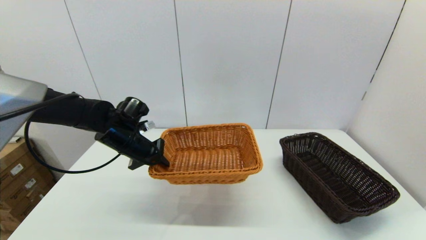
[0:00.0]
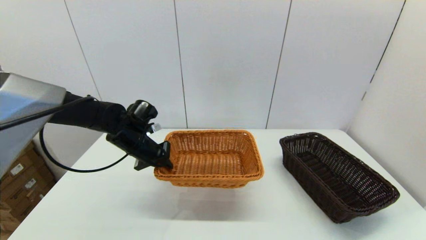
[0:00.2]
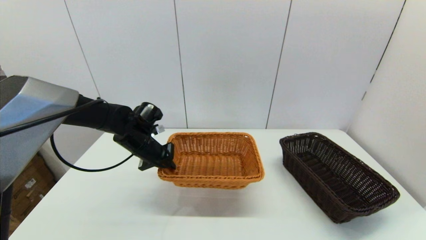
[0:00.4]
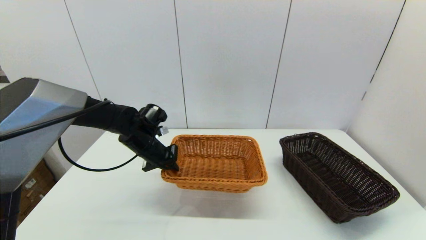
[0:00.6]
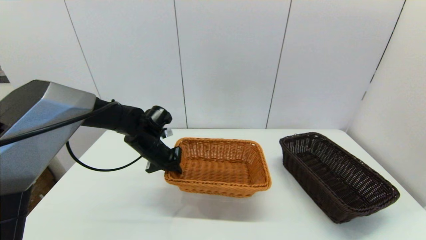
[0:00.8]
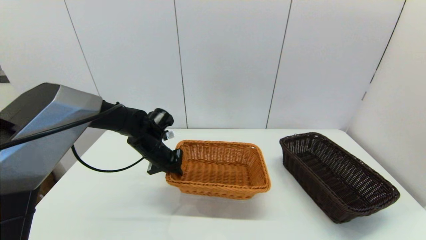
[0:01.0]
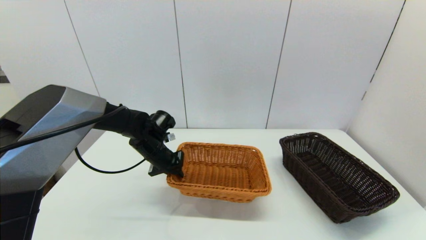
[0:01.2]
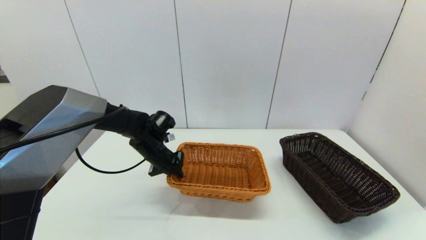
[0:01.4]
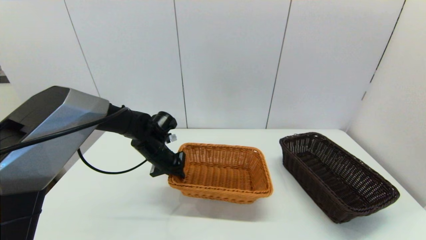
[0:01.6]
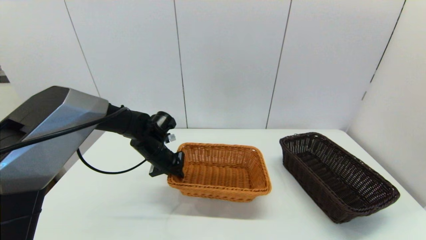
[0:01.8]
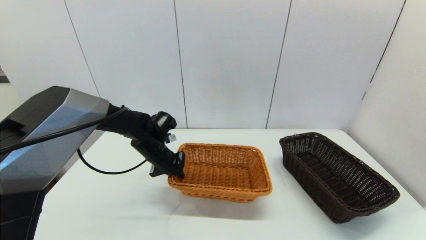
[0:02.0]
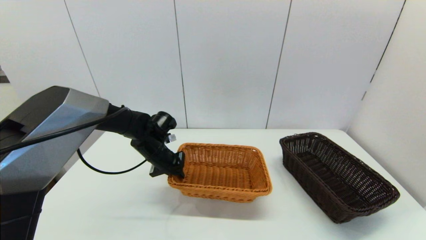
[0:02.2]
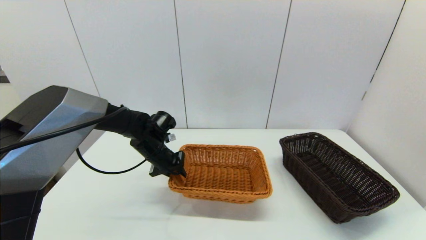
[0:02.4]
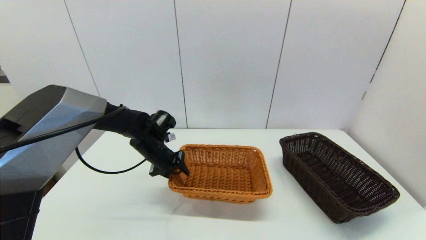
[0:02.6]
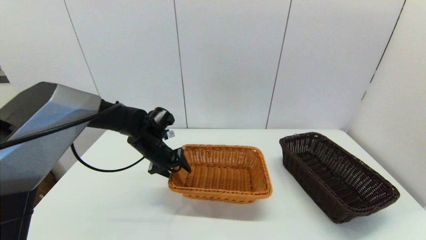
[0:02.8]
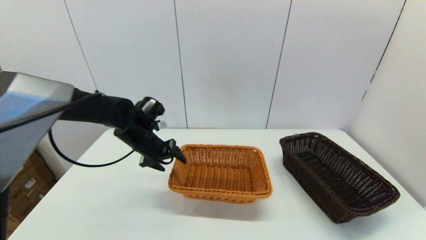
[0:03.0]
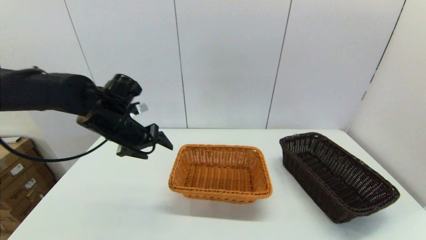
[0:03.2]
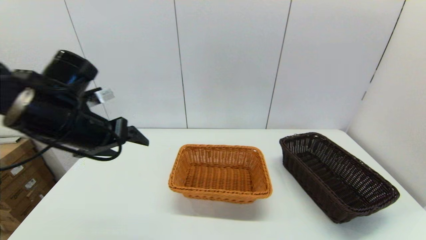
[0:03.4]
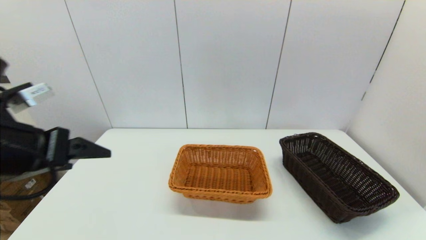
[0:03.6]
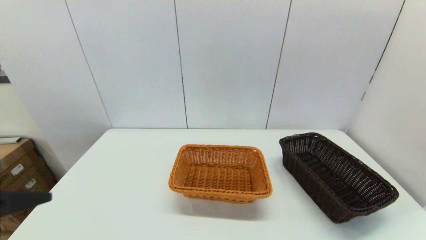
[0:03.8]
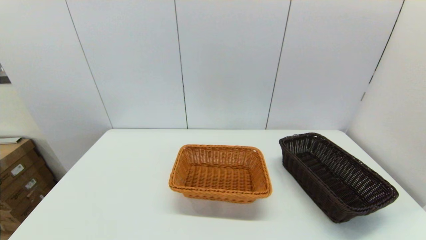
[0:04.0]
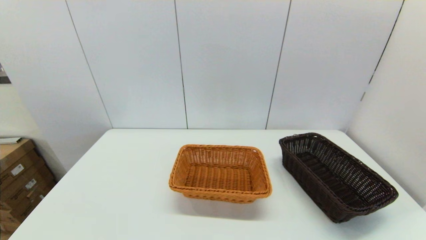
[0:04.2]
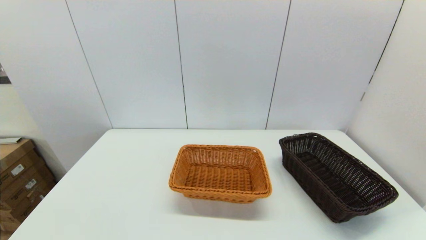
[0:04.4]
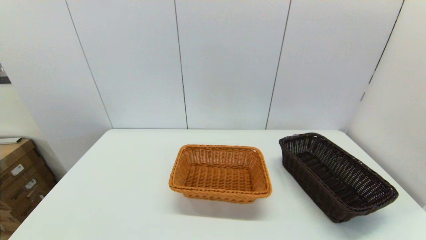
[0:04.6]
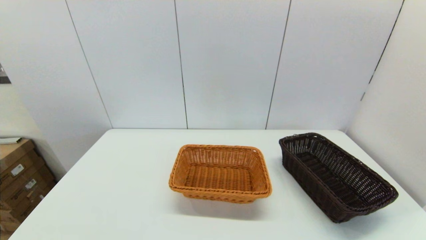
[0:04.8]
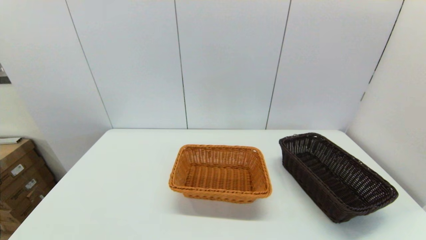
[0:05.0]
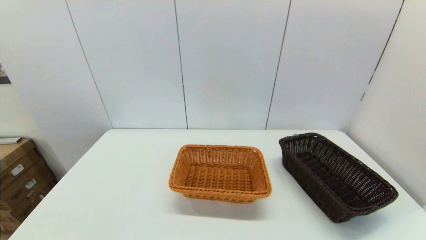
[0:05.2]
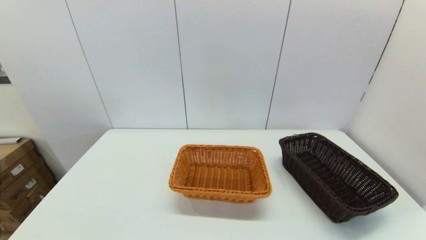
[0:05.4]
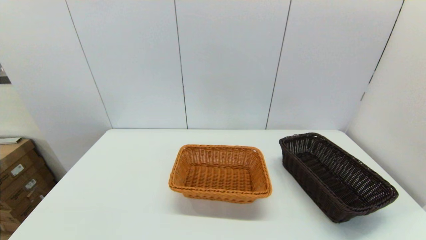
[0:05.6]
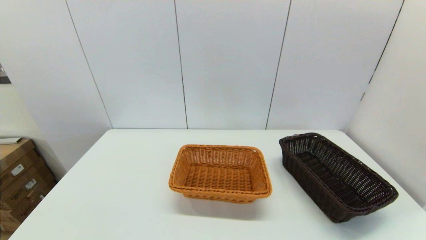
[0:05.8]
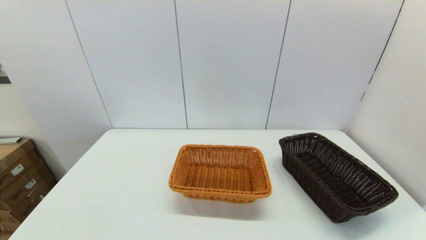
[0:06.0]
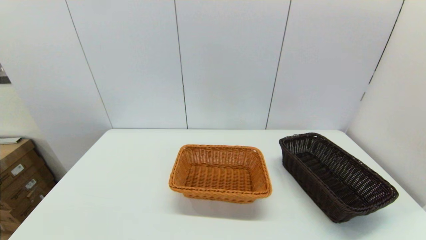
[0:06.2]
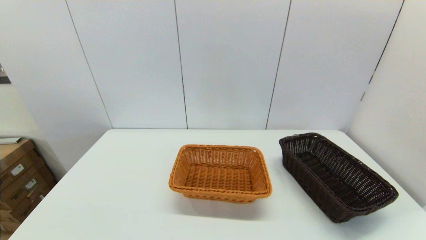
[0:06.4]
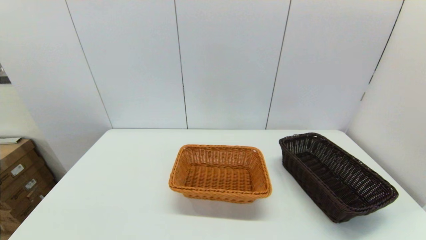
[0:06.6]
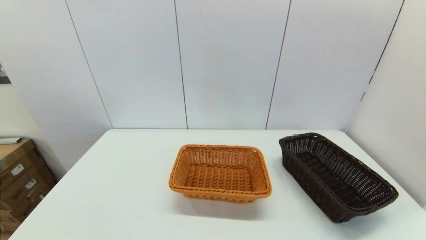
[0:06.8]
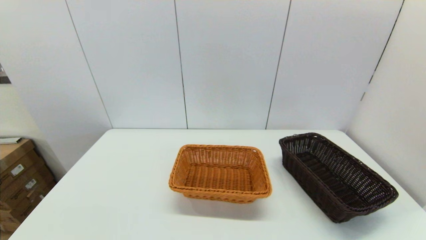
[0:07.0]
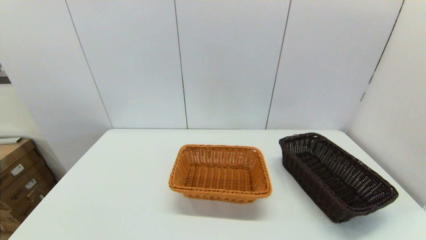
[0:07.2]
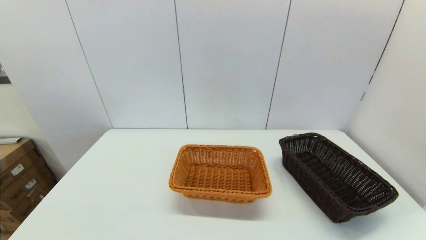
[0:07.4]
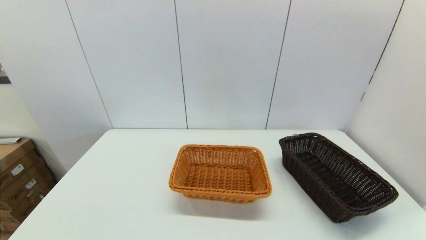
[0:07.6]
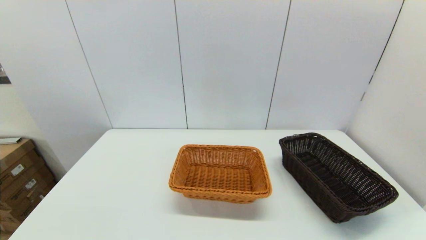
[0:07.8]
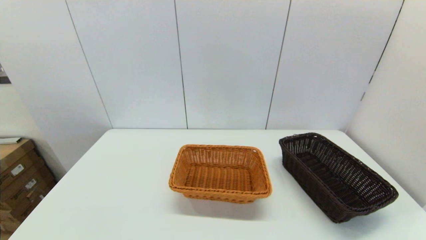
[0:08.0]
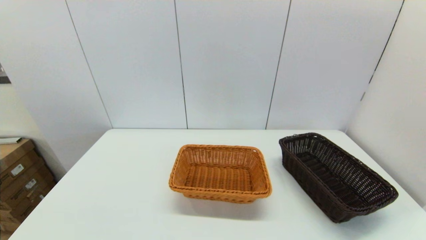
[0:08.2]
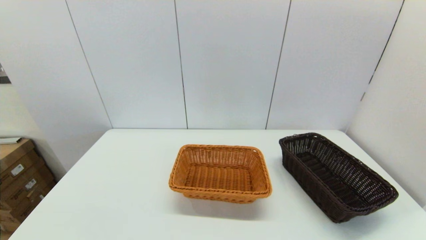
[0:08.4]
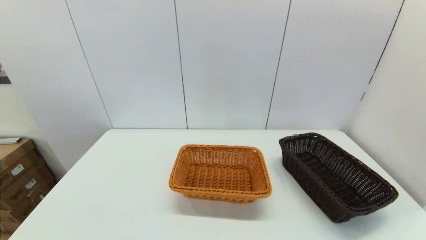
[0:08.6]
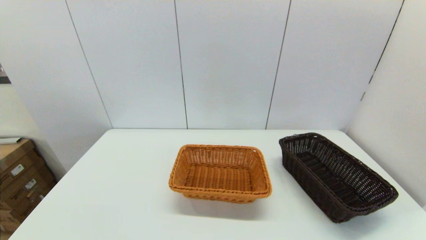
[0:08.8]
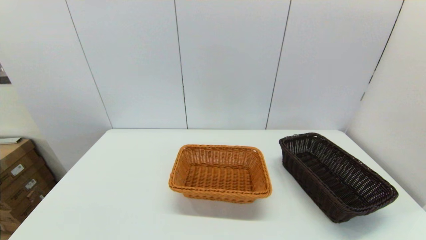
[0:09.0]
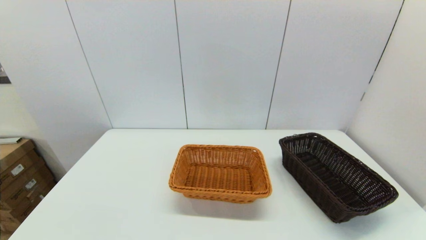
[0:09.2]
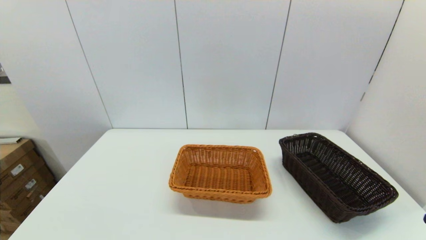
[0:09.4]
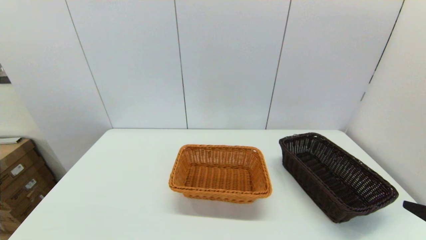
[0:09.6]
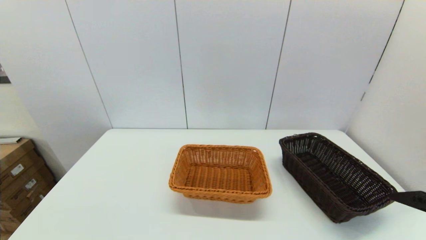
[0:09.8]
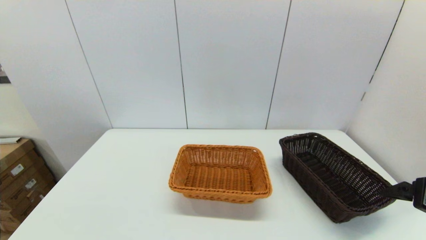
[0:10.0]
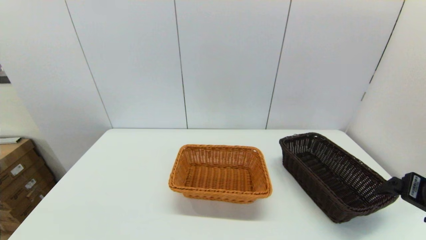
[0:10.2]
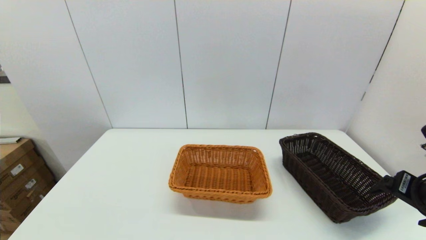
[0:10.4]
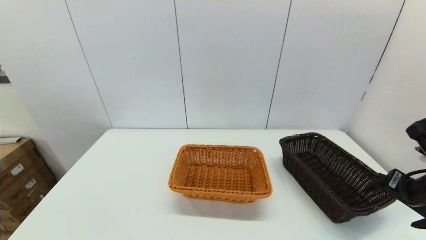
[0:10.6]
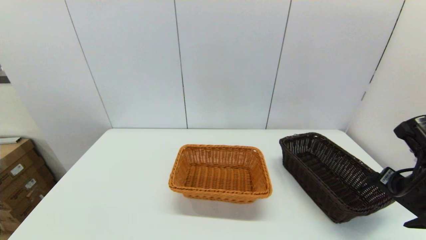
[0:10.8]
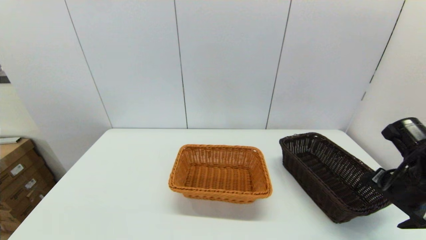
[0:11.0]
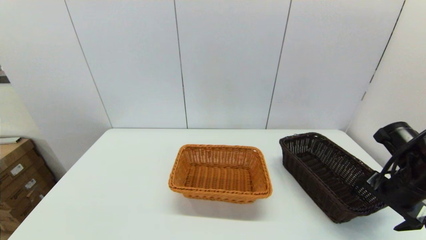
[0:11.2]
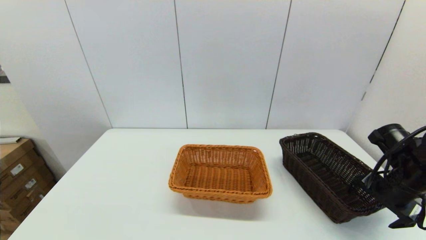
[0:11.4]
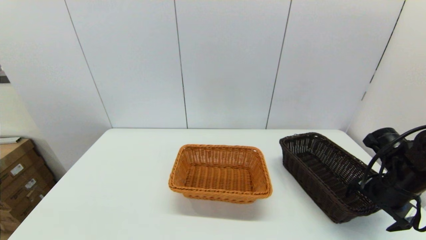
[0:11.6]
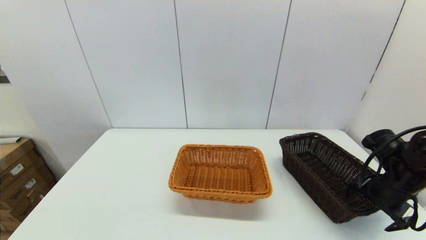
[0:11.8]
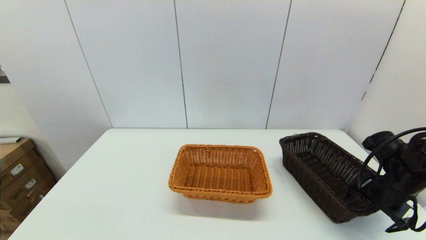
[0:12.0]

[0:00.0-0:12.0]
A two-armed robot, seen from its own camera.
Task of the whole recording: stack a basket on top of another basket.
Step, 0:00.0 to 0:03.2: Place the light basket on the middle of the table with the left gripper.
0:00.0 to 0:01.6: The left gripper heads downward, covering approximately 5 cm.
0:01.6 to 0:03.0: The left gripper is displaced upward by about 5 cm, and opens its fingers.
0:03.0 to 0:04.4: The left gripper shifts roughly 50 cm backward.
0:06.0 to 0:07.6: The two grippers keep their place.
0:09.0 to 0:10.4: The right gripper shifts about 20 cm forward.
0:10.4 to 0:12.0: The right gripper moves downward and forward, some 10 cm.

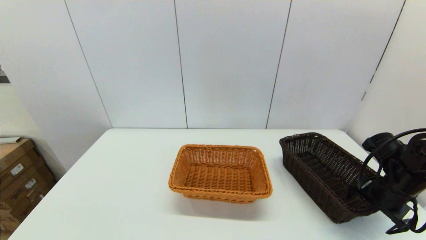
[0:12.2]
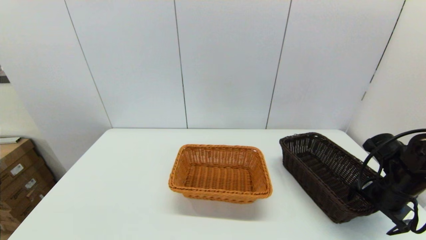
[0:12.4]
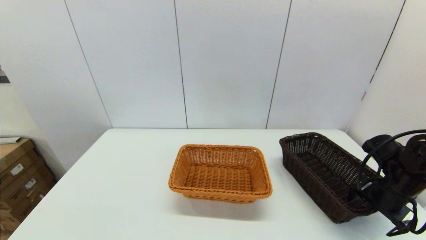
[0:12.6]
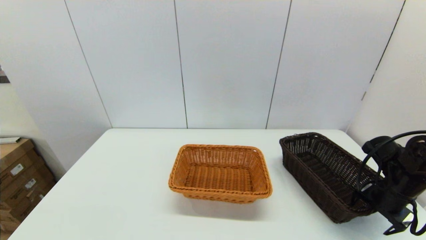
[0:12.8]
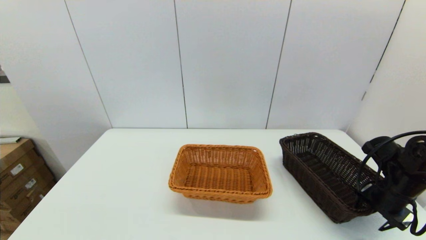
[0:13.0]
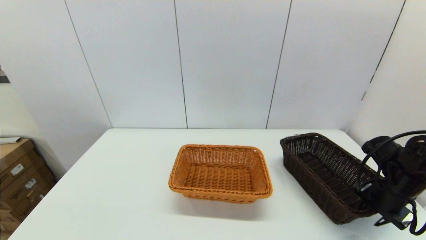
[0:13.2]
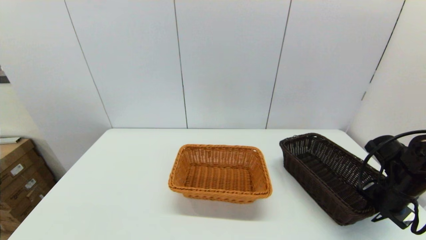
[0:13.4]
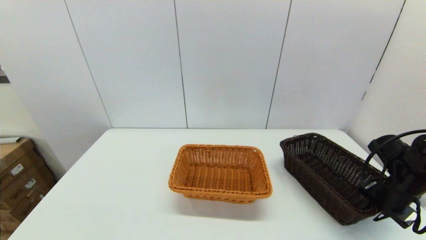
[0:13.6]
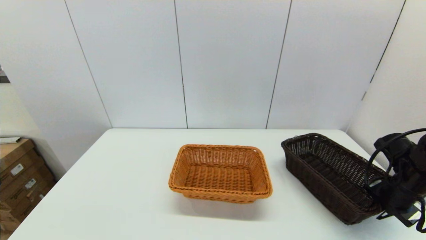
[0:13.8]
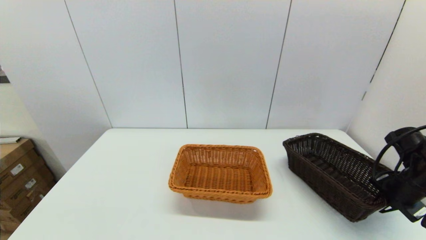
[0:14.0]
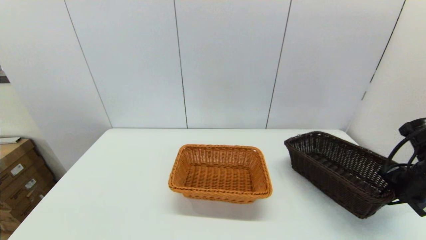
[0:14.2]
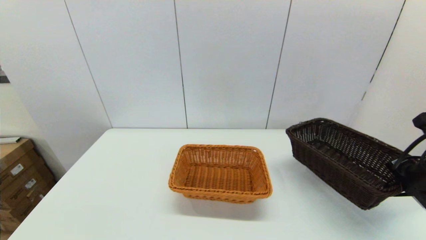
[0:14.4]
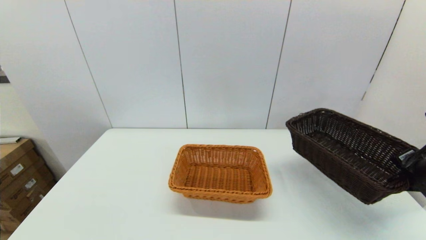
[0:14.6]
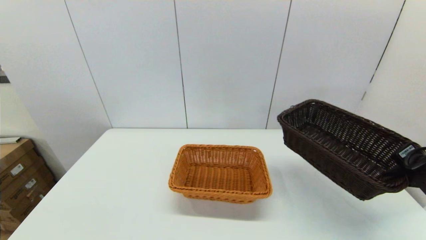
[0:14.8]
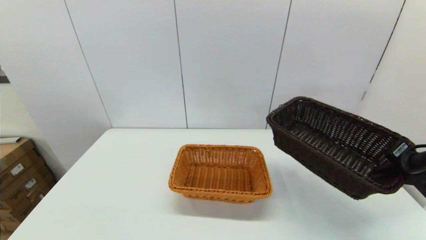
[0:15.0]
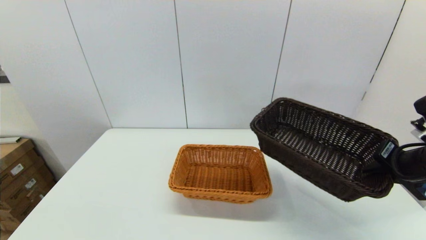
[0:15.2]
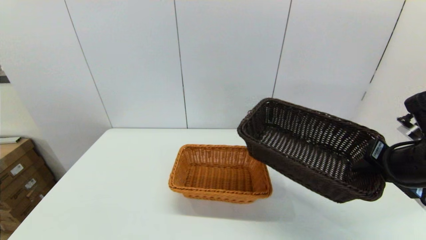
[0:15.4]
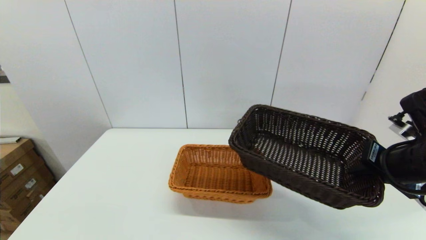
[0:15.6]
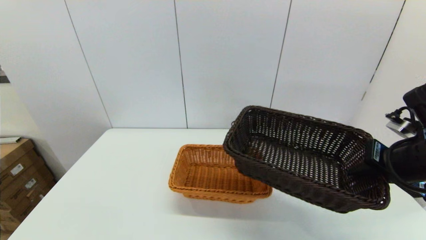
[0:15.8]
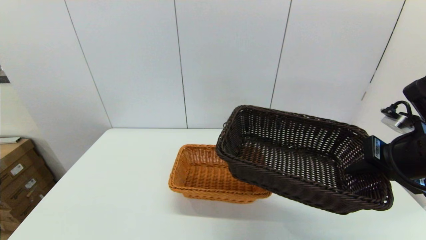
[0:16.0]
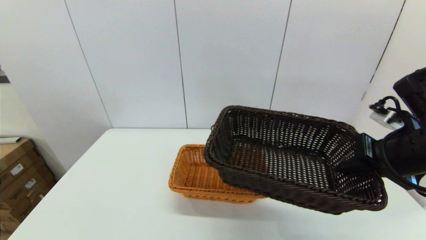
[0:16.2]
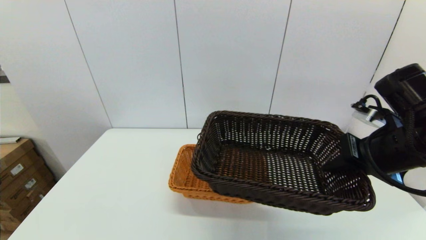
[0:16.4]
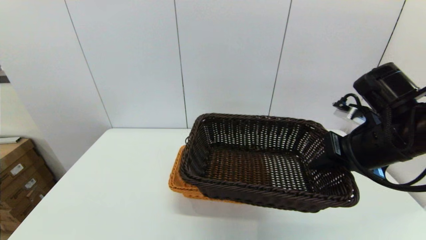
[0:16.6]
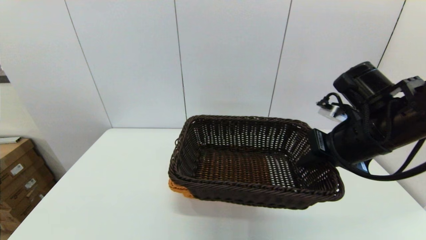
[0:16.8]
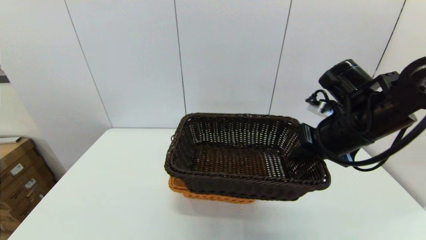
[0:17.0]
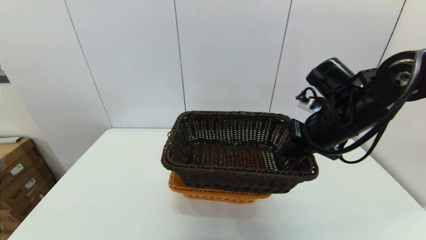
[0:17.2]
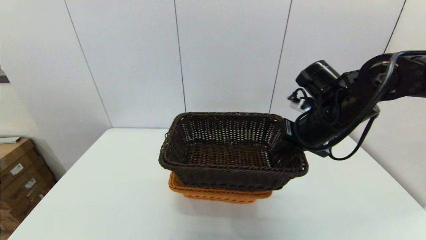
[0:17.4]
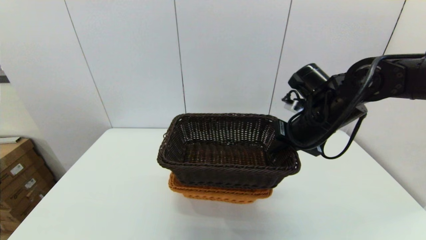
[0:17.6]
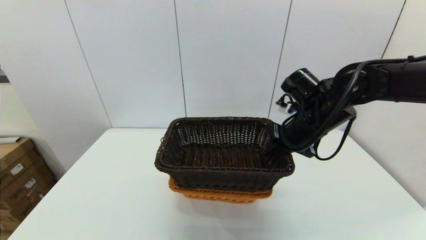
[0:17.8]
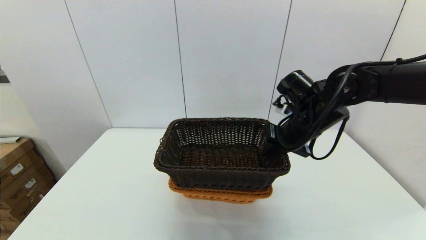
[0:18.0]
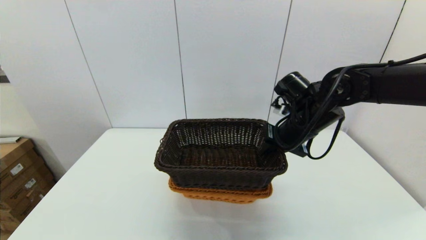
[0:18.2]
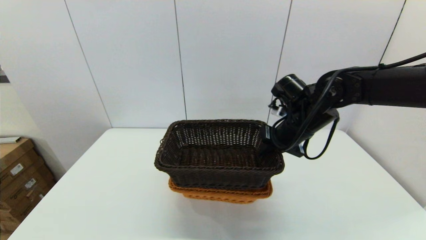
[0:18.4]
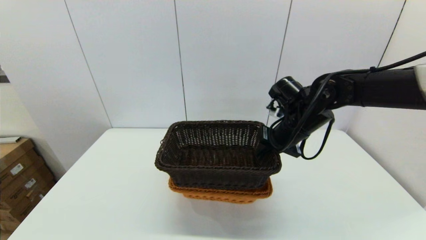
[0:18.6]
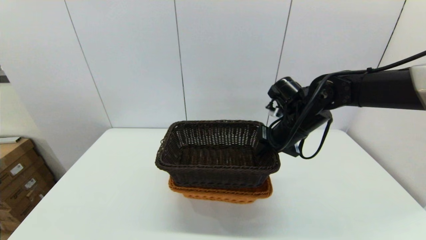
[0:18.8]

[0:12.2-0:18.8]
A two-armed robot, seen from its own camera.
Task of the whole recording: stack a basket on top of another basket.
0:12.2 to 0:13.8: The right gripper closes.
0:13.8 to 0:15.4: The right gripper shifts roughly 15 cm upward and to the left.
0:15.4 to 0:17.2: The right gripper goes roughly 15 cm to the left and forward.
0:17.2 to 0:18.8: The right gripper goes some 5 cm forward.
